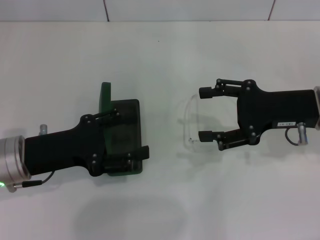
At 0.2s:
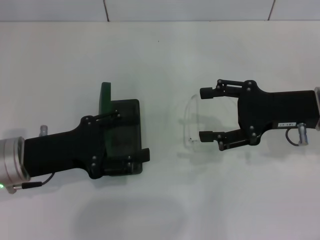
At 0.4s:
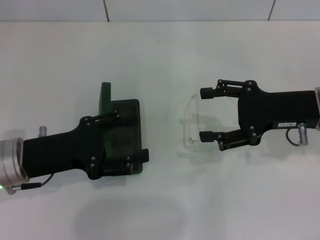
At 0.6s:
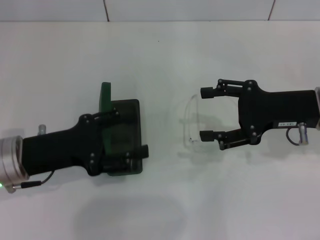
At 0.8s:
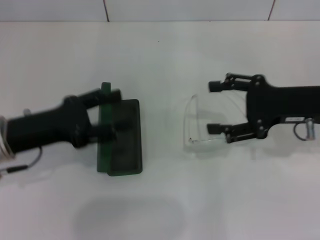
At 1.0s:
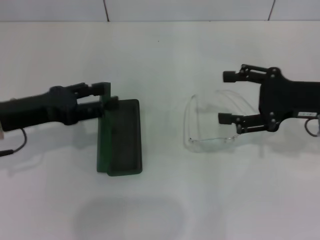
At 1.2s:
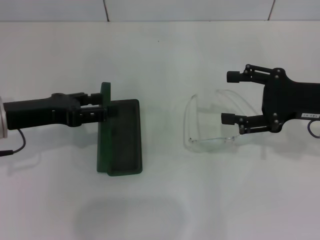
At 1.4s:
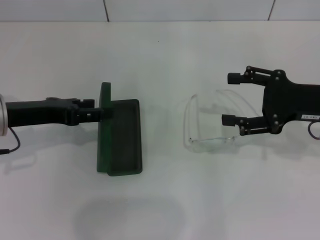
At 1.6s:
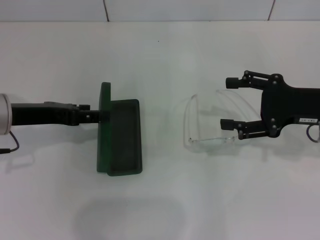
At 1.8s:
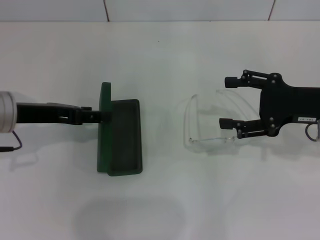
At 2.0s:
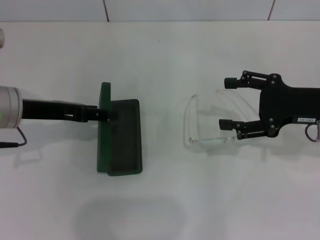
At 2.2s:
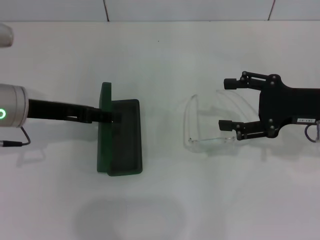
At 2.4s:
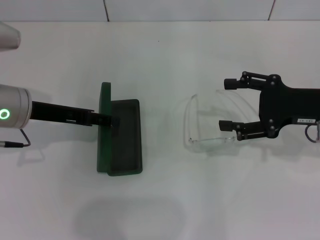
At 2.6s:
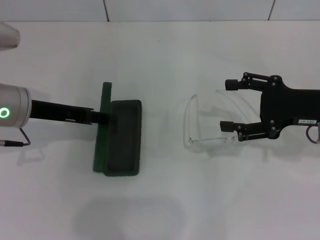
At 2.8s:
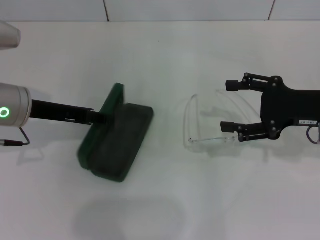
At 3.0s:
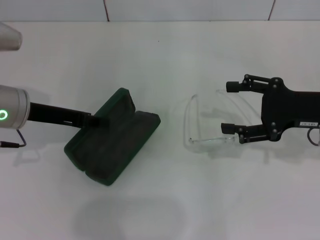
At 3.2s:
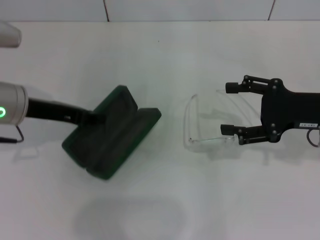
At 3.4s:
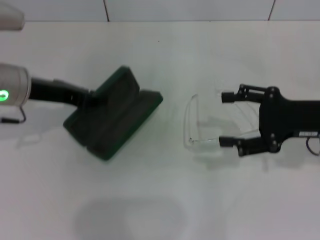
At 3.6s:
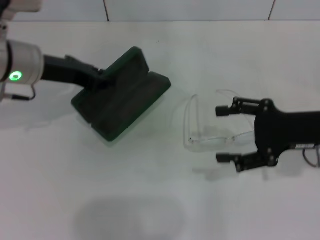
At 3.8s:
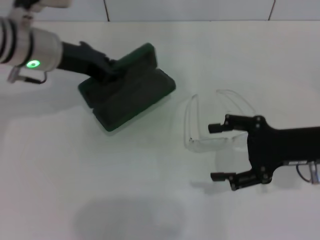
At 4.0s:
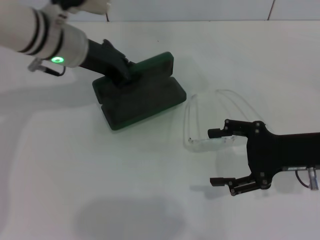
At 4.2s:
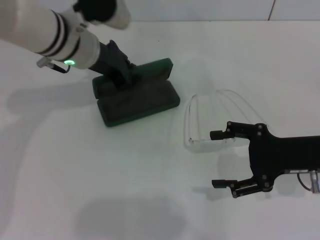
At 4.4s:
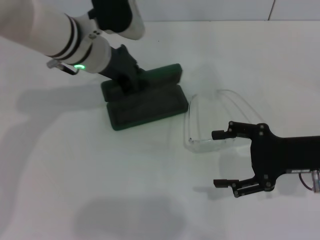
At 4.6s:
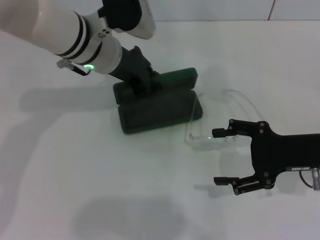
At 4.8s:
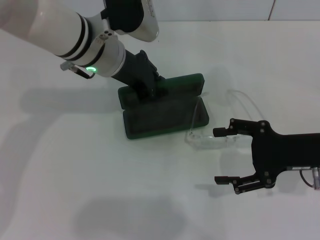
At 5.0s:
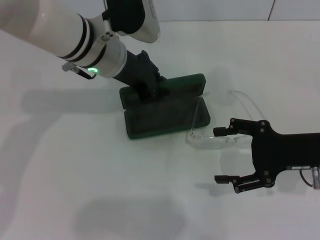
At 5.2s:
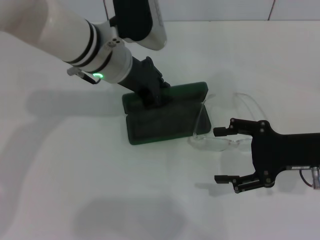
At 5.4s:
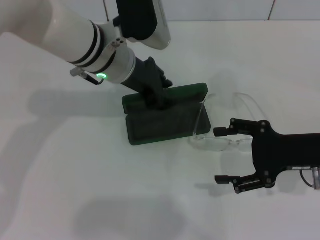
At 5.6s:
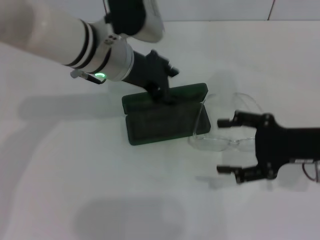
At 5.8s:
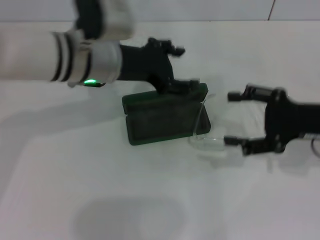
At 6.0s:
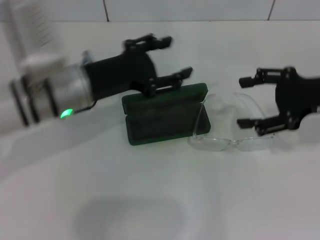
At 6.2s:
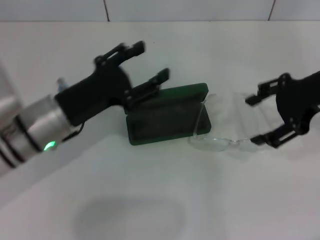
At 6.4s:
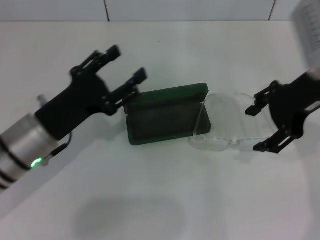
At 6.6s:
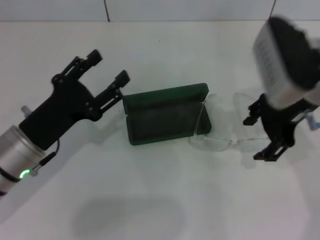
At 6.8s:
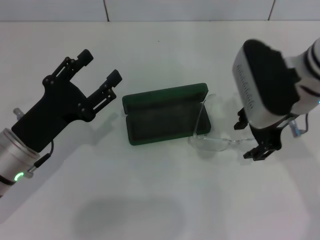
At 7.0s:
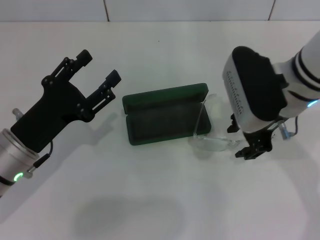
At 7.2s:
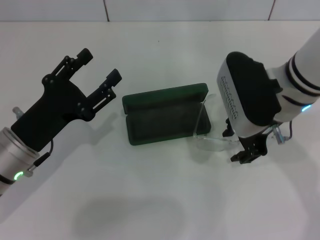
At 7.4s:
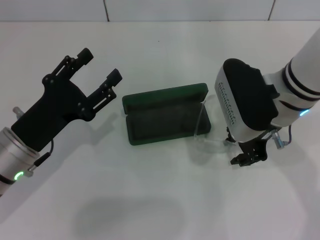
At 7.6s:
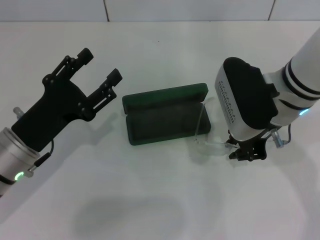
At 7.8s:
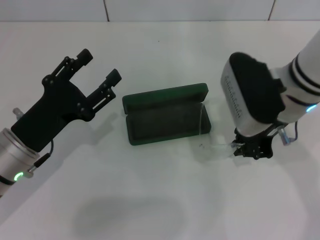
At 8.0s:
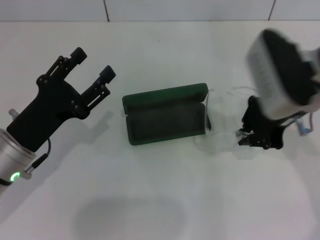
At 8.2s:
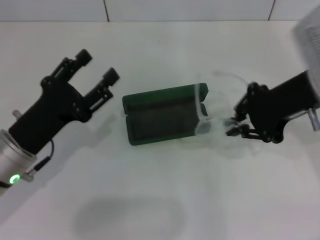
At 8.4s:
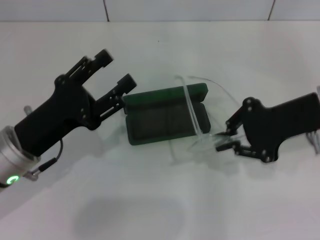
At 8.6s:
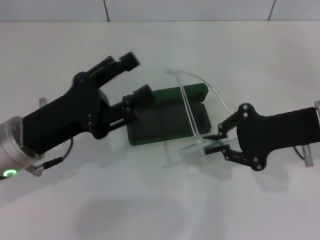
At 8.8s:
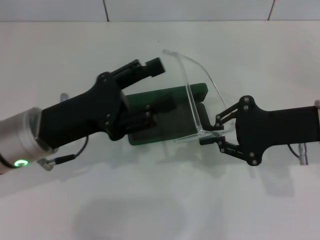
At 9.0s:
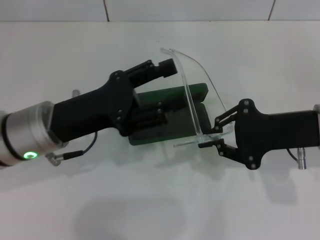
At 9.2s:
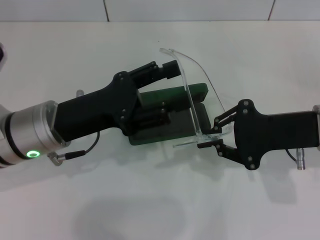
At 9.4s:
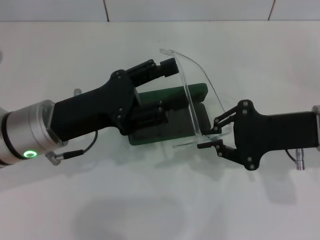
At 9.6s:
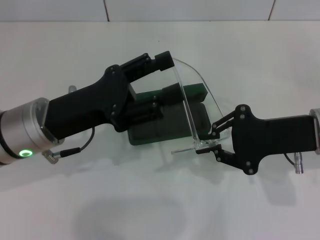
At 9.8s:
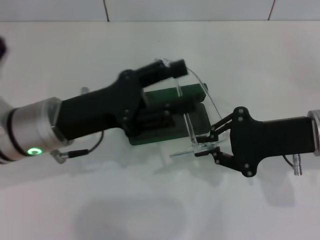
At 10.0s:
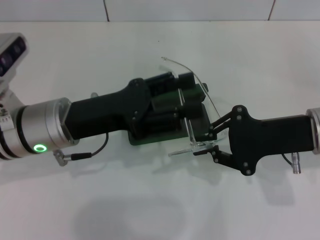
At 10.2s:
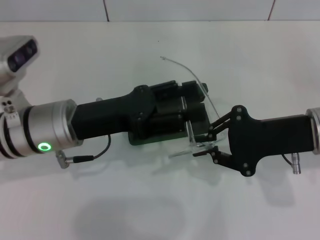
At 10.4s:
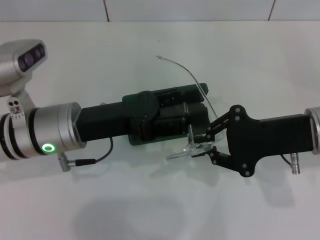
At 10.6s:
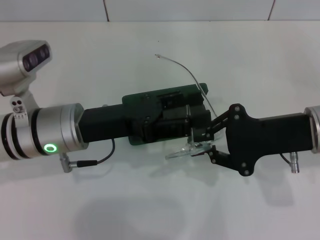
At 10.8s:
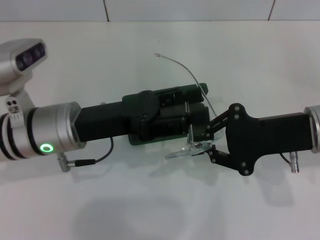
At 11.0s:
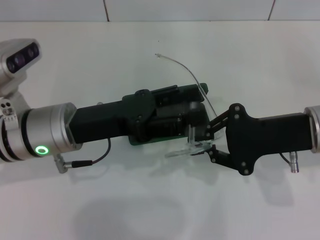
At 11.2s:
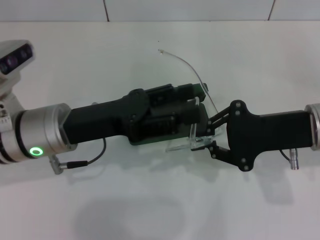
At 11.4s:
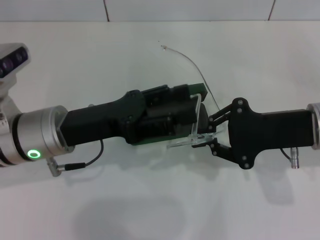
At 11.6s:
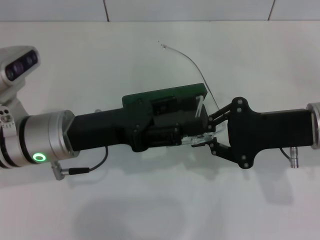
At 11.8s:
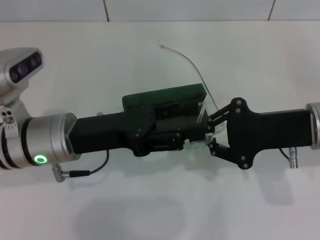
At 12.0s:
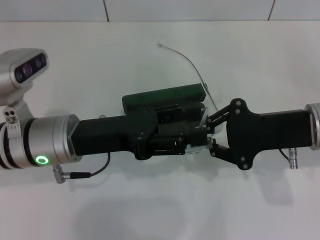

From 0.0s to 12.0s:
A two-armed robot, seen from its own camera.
Step, from 0.0s to 2.8s: Grab the glasses case with your left hand.
Step, from 3.2s to 5.2s: Place the glasses case in the center of the table with your left hand.
Step, from 5.4s to 7.6s: Grab the eyeglass frame with your right hand.
From 0.0s to 1.6s: The left gripper moves forward, roughly 5 cm.
From 1.6s to 3.0s: The left gripper closes.
From 3.0s to 4.4s: The left gripper heads to the right and forward, covering about 15 cm, and closes up.
From 4.4s to 6.0s: The left gripper is displaced backward by approximately 10 cm, and opens; the right gripper heads upward, covering roughly 5 cm.
From 6.0s to 7.6s: The right gripper travels to the left by approximately 15 cm, and closes up. The left gripper goes roughly 10 cm backward, to the left and downward.
From 7.6s to 9.0s: The right gripper is displaced to the right by about 10 cm, and closes up. The left gripper shifts by some 5 cm.
From 9.0s to 10.4s: The grippers stay close to where they were, moving slightly.
From 10.4s to 12.0s: The grippers make only small movements.

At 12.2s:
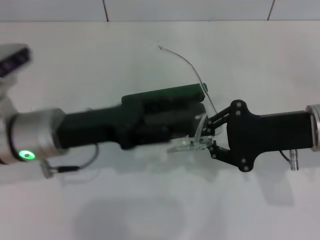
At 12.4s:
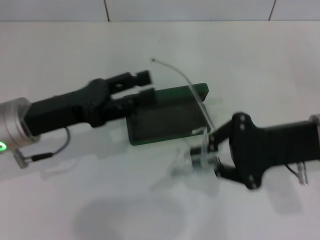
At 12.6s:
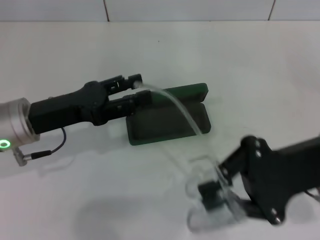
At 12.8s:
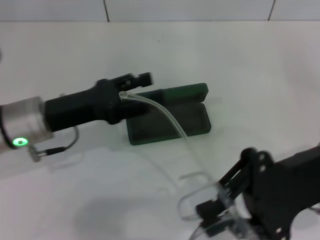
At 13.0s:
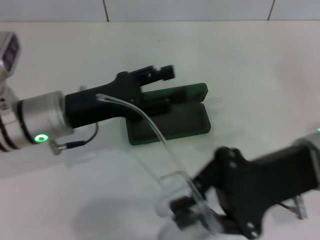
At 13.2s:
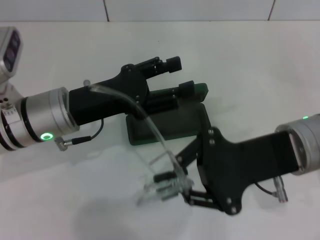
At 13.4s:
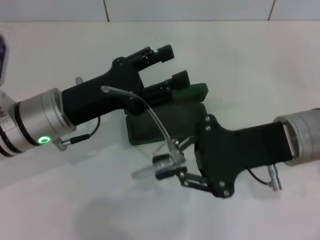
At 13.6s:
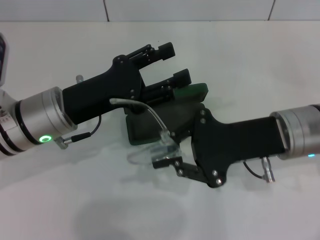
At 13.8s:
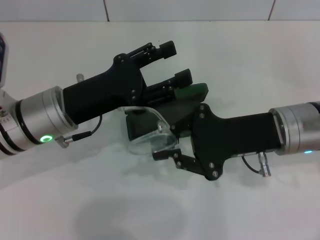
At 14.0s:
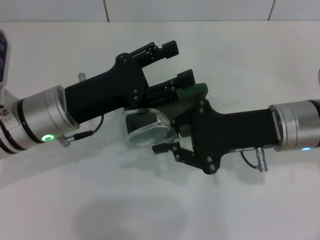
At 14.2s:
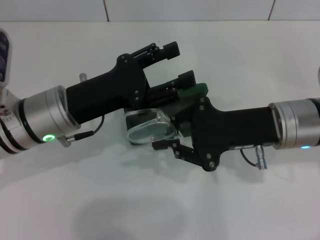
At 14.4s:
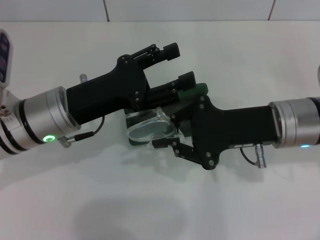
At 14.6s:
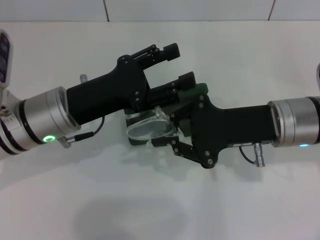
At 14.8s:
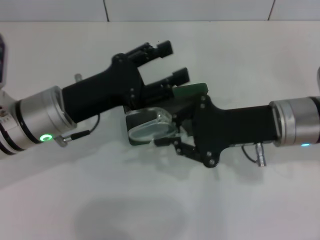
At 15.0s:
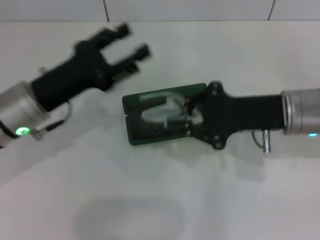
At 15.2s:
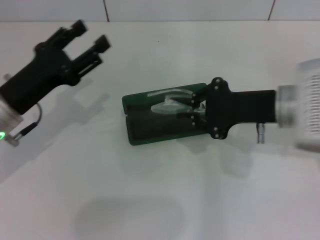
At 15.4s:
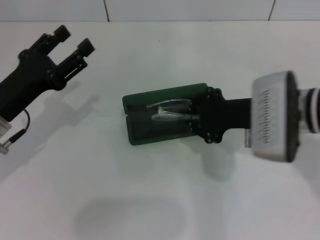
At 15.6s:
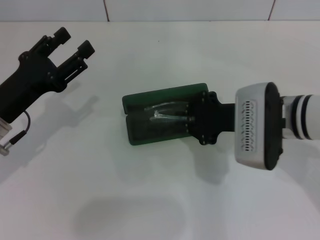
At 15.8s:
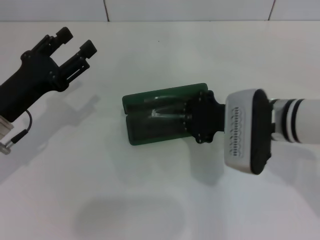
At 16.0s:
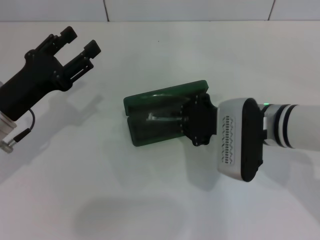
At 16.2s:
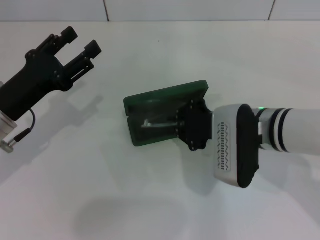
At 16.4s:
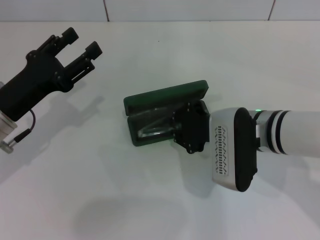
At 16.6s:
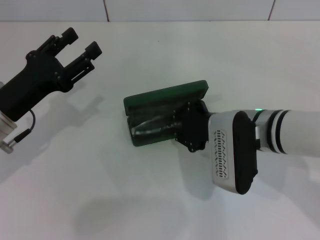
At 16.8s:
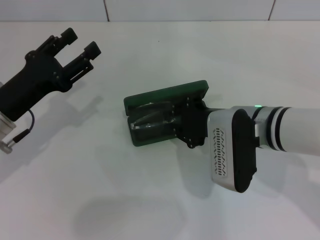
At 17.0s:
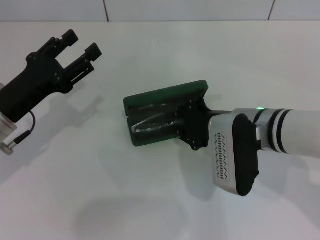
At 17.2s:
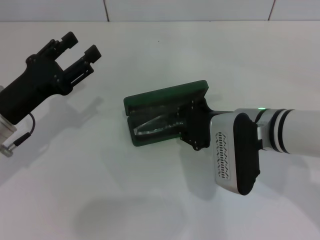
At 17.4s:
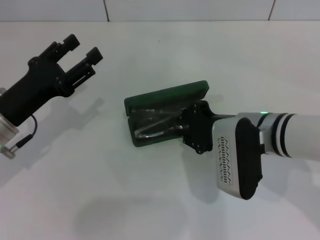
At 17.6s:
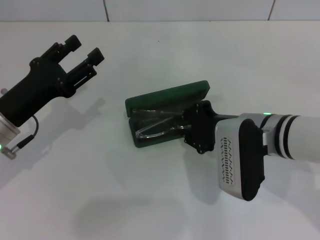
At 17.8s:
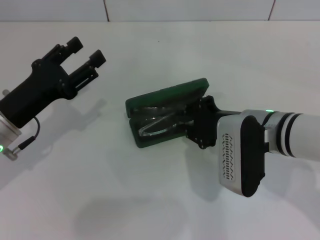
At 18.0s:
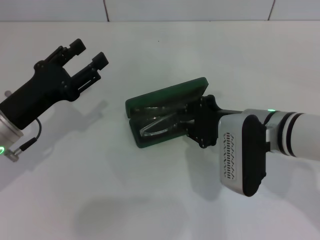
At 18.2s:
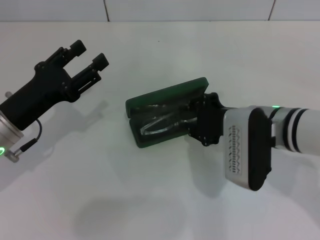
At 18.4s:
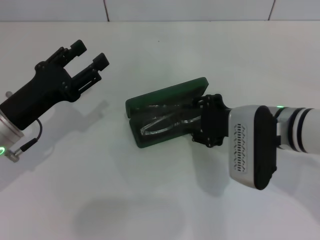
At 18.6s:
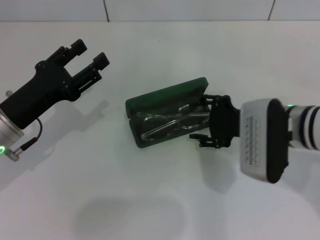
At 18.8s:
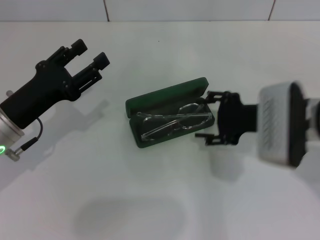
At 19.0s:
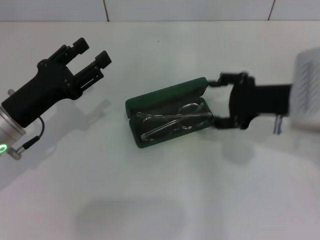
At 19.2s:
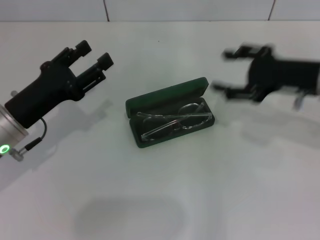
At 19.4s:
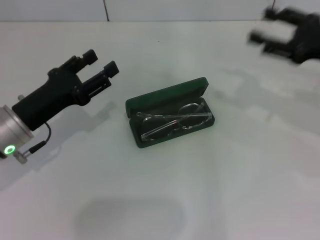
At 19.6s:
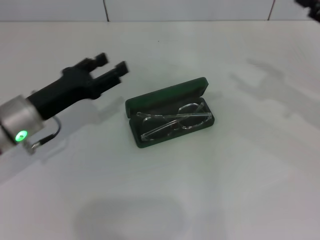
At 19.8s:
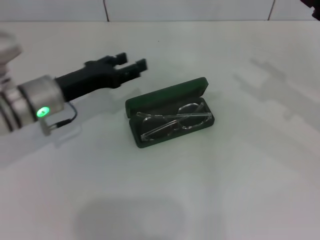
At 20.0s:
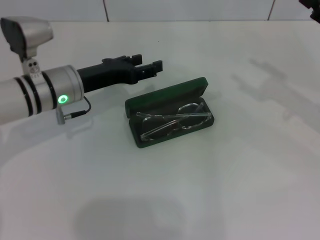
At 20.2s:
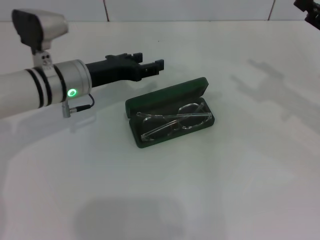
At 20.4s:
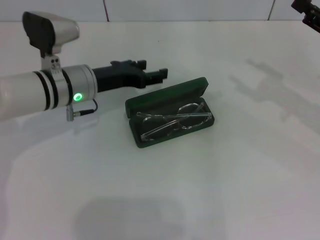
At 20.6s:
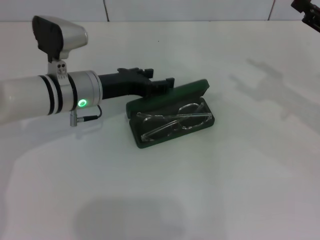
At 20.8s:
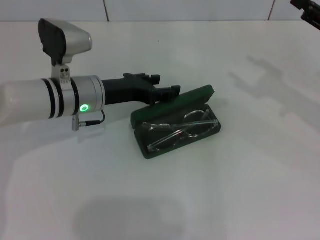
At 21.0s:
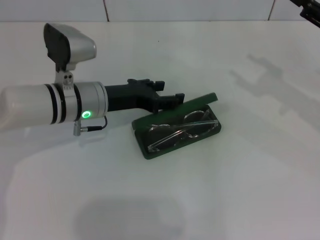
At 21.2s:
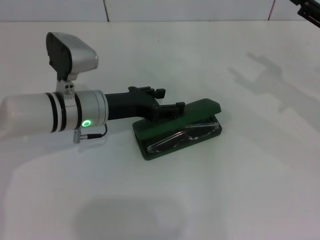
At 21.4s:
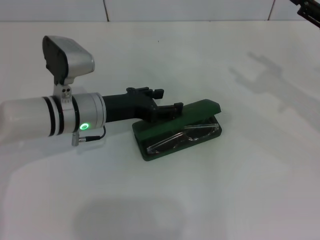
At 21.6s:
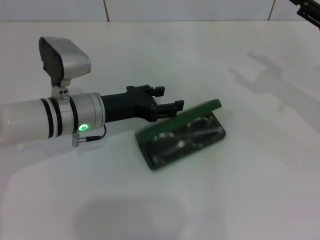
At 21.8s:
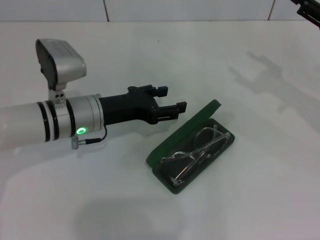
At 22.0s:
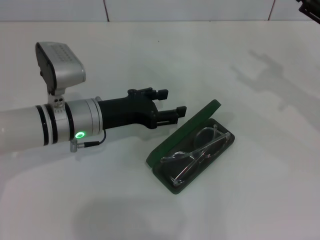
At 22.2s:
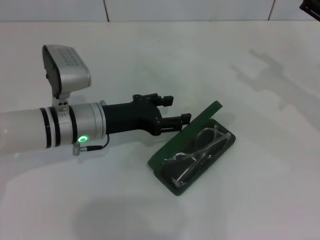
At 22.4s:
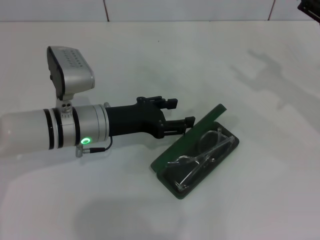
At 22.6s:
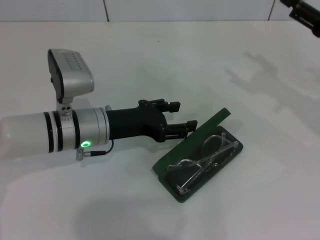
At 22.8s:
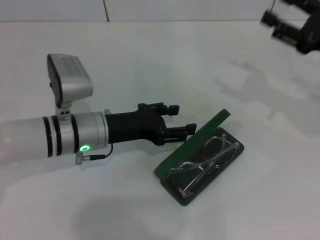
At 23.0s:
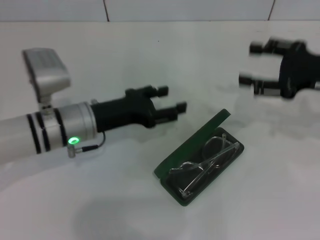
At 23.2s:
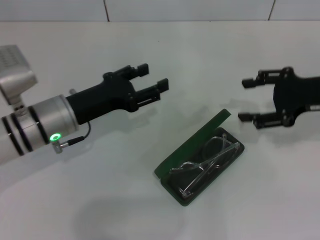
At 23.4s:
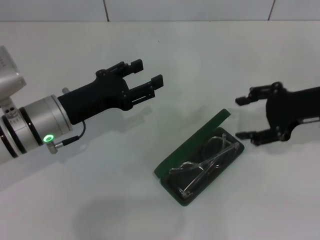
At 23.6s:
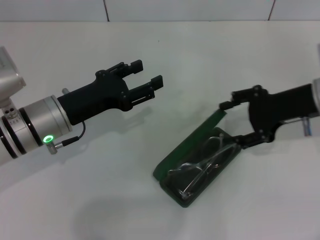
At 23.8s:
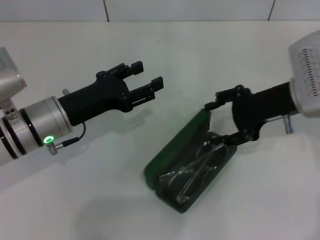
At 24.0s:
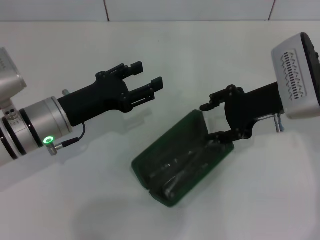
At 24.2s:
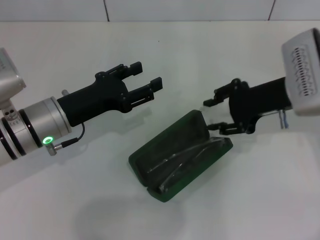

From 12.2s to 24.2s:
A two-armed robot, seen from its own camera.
Step, from 12.2s to 14.6s: Fold the frame with your left hand.
Step, from 14.8s to 18.6s: Put the glasses into the case with your right hand.
From 13.8s to 15.2s: The left gripper heads to the left, covering approximately 5 cm.
From 15.2s to 16.6s: The right gripper heads to the left, covering some 5 cm.
From 16.6s to 18.2s: The grippers make only small movements.
From 18.2s to 19.8s: The left gripper is displaced forward by about 5 cm; the right gripper travels to the right by some 20 cm, and opens.
From 19.8s to 21.2s: The left gripper travels to the right by roughly 5 cm.
From 21.2s to 22.6s: The grippers move only a little.
From 22.6s to 24.2s: The right gripper travels to the left by approximately 10 cm, while the left gripper ends up approximately 5 cm from where it was.
